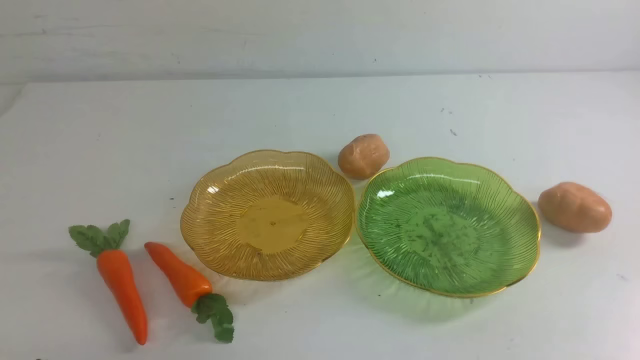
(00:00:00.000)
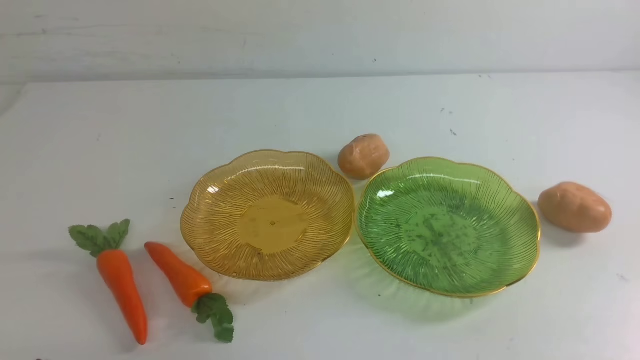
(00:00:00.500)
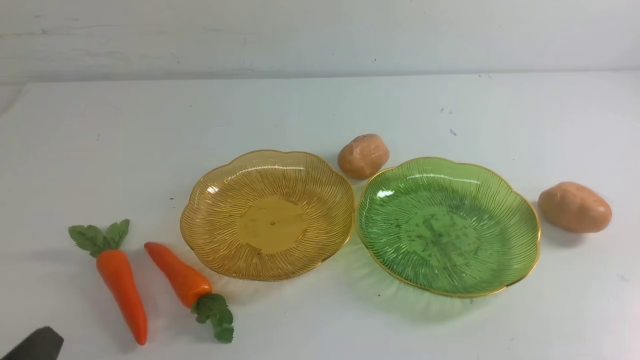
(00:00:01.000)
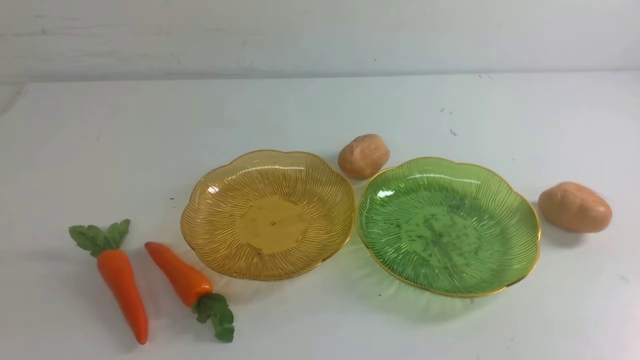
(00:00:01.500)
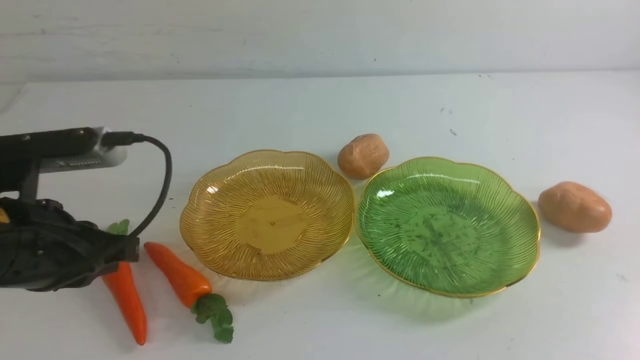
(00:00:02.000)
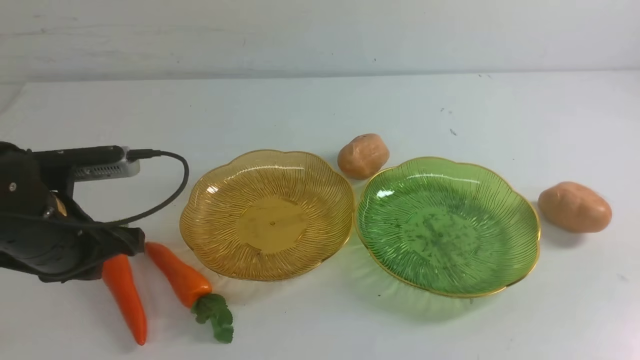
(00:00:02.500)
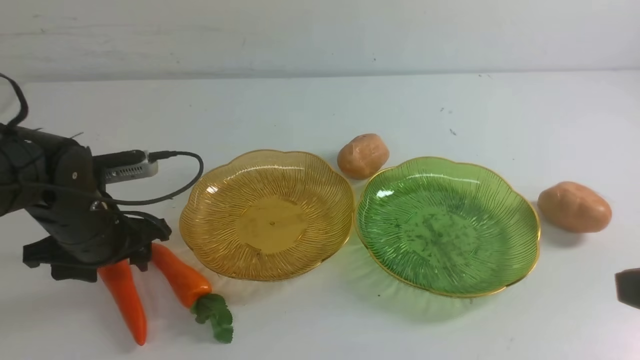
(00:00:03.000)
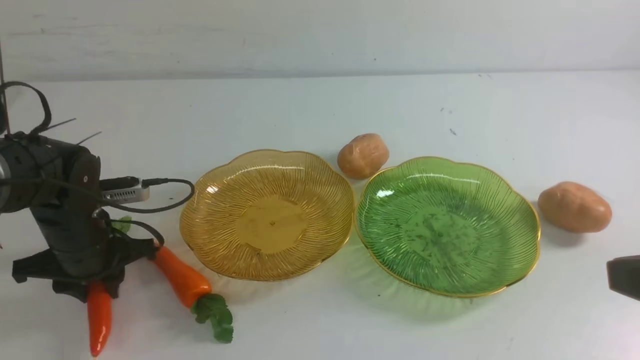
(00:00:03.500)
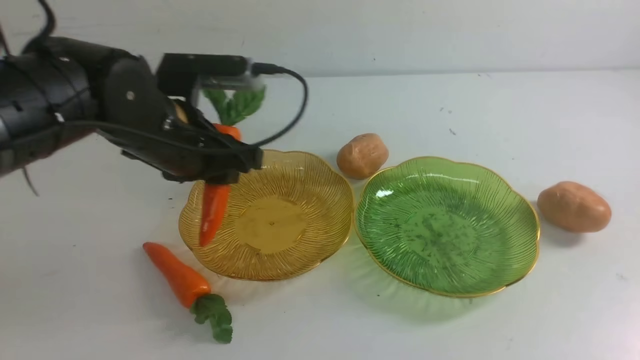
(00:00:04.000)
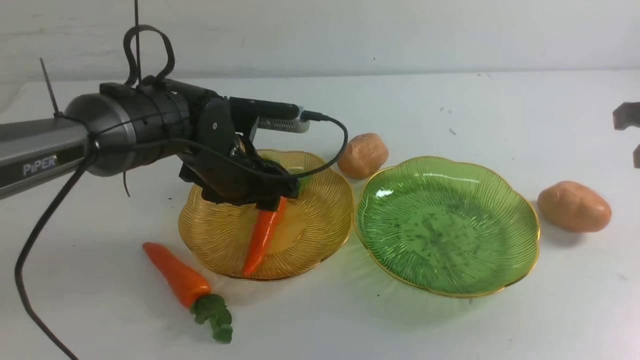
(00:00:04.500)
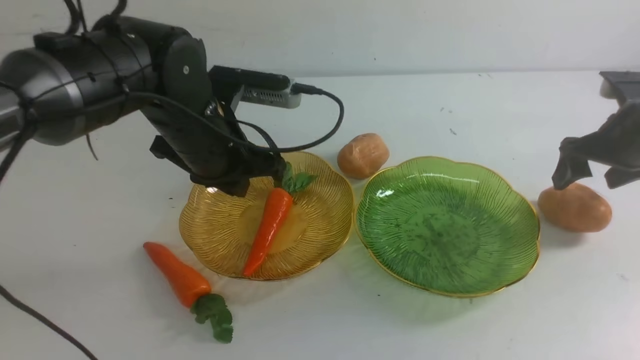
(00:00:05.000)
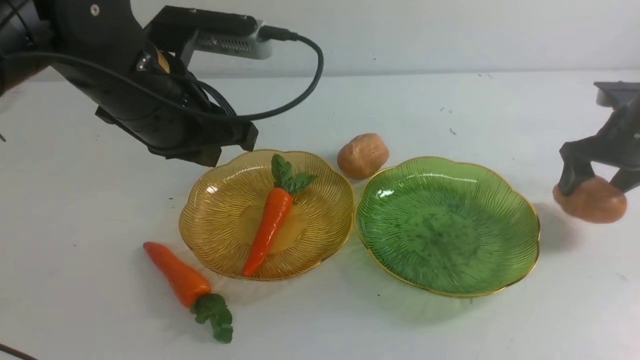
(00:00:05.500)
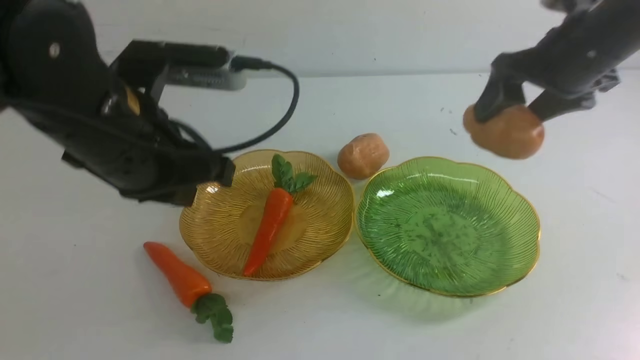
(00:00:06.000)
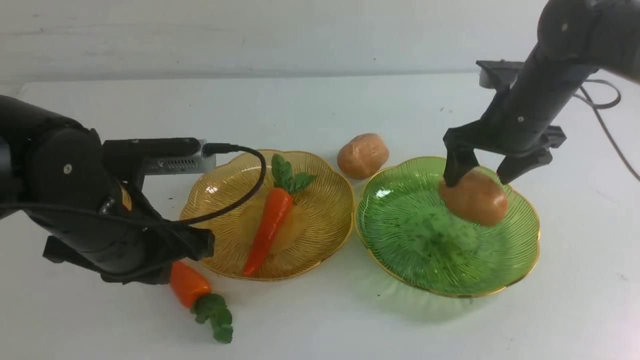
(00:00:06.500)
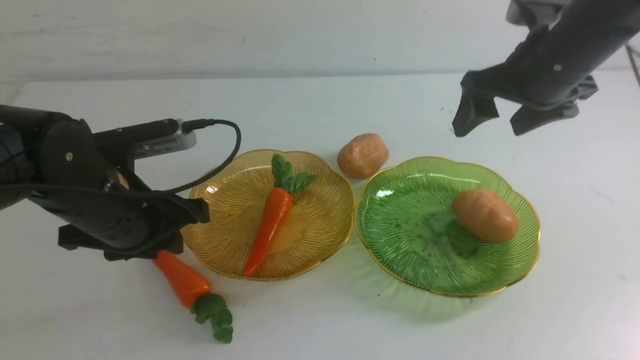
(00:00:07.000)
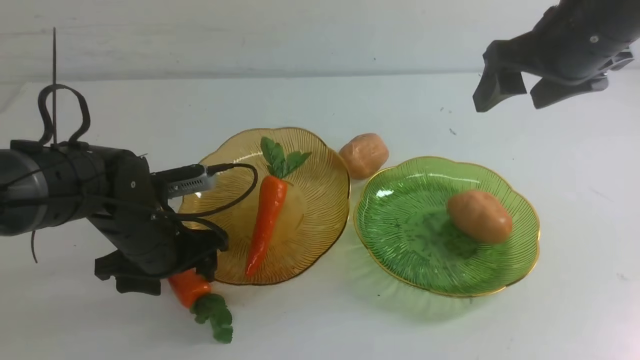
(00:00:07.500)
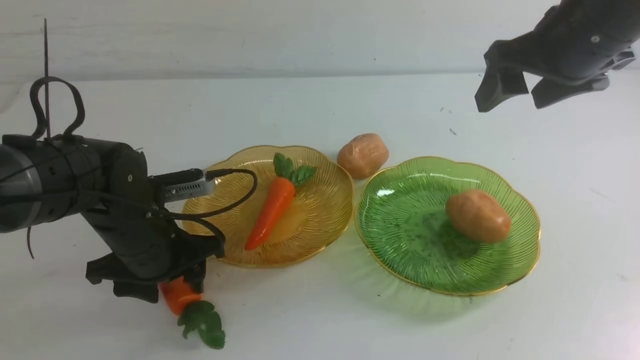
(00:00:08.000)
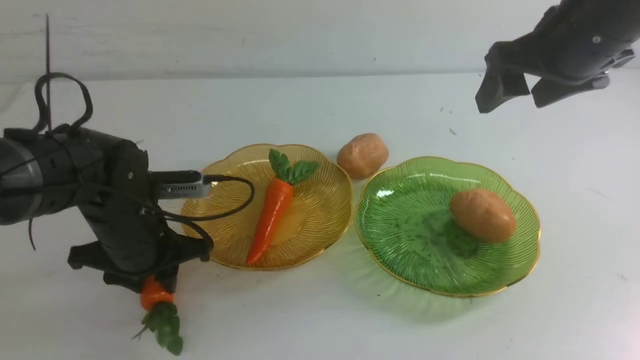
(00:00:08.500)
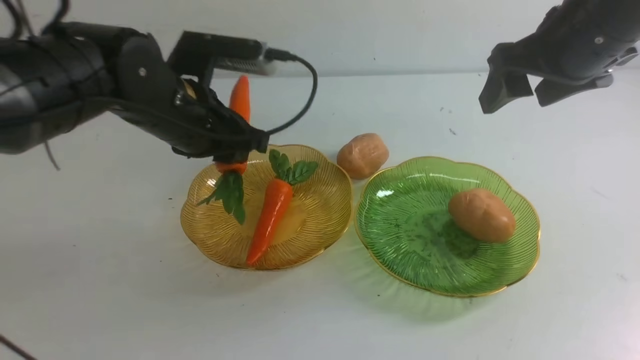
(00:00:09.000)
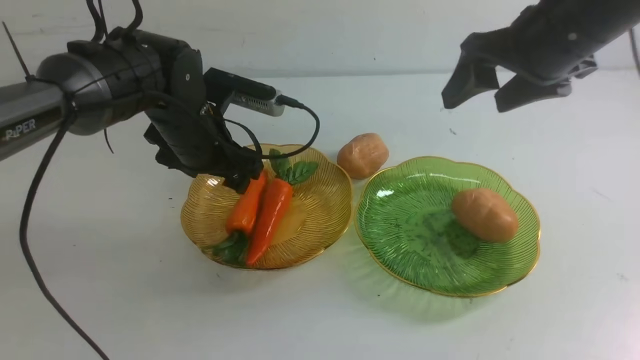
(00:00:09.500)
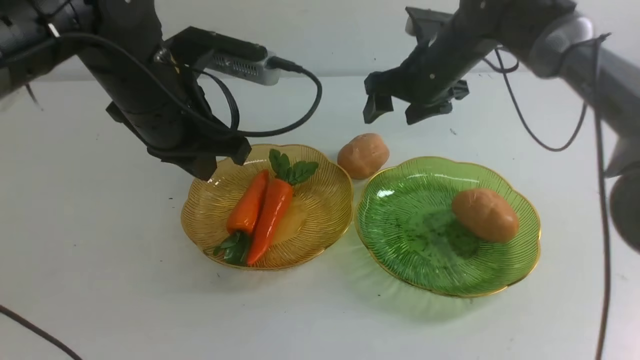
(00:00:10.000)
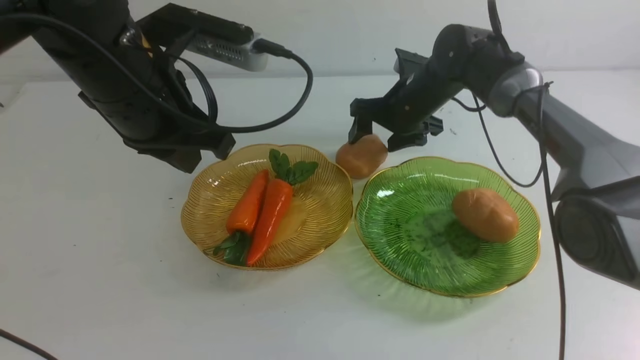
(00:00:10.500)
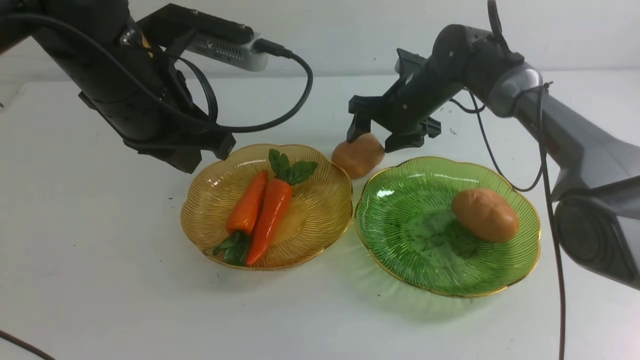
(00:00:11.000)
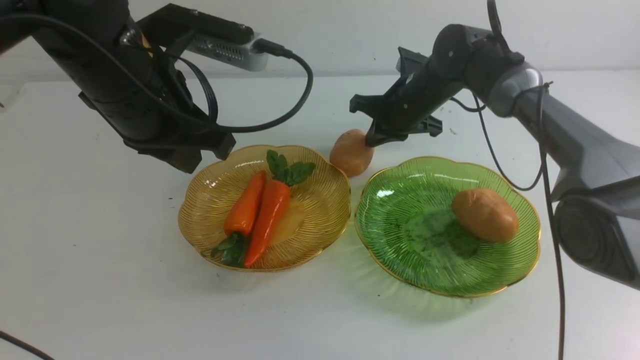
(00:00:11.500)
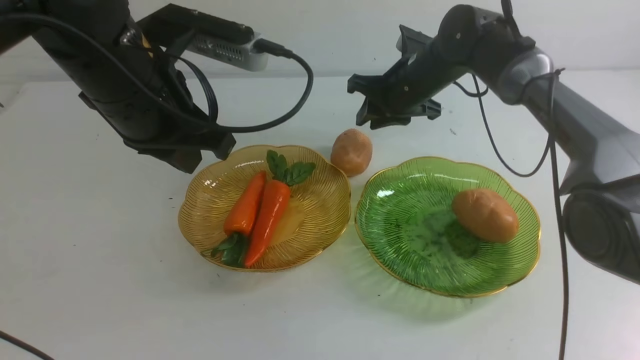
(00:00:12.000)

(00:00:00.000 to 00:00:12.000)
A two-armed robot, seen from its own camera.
Step, 00:00:00.000 - 00:00:04.500: use the left arm to grab a carrot and put it into the left plate.
Step, 00:00:05.000 - 00:00:06.500: Grab a potato with your right arm and put it on the right plate.
Step, 00:00:07.000 - 00:00:09.500: use the left arm to grab a carrot and put it into the left plate.
00:00:00.000 - 00:00:02.000: The left gripper shifts about 20 cm forward and upward.
00:00:02.000 - 00:00:04.000: The left gripper goes about 15 cm forward and to the right, and opens. Meanwhile the right gripper goes about 20 cm forward and upward.
00:00:04.000 - 00:00:06.000: The right gripper heads forward, covering about 20 cm, and opens, while the left gripper is displaced backward and upward by about 10 cm, and closes up.
00:00:06.000 - 00:00:08.000: The left gripper goes about 15 cm downward, and opens its fingers. Meanwhile the right gripper moves upward, approximately 5 cm.
00:00:08.000 - 00:00:10.000: The right gripper goes roughly 20 cm forward, downward and to the left, while the left gripper is displaced upward by roughly 15 cm, and closes up.
00:00:10.000 - 00:00:12.000: The right gripper closes, then reopens.

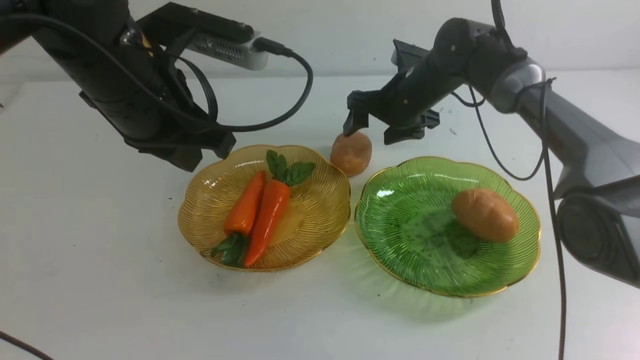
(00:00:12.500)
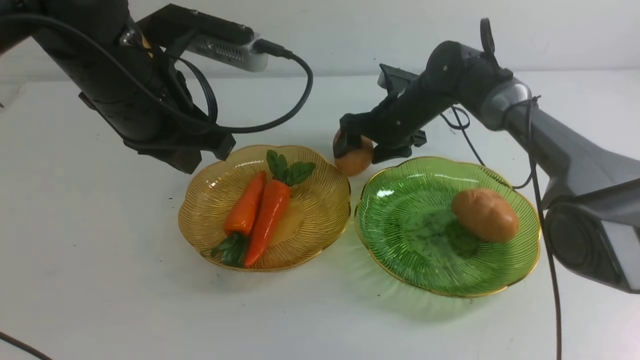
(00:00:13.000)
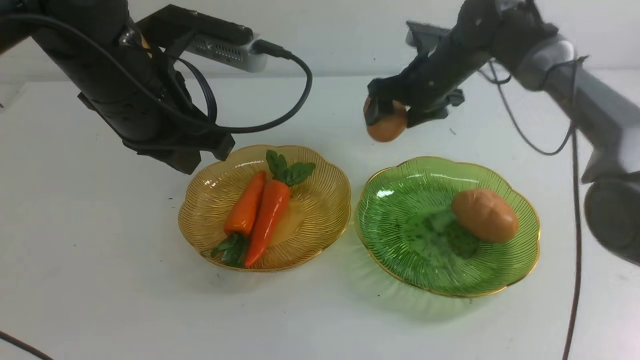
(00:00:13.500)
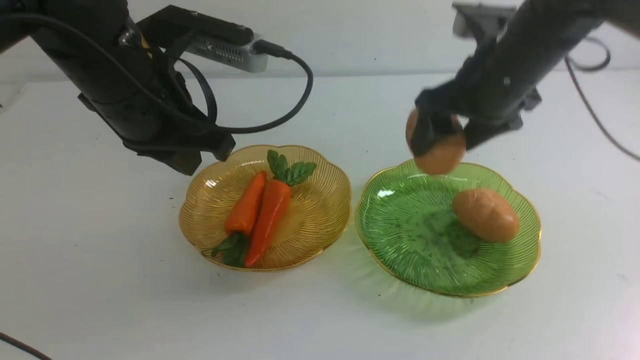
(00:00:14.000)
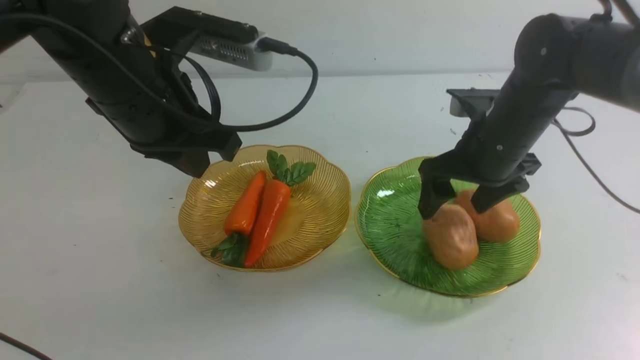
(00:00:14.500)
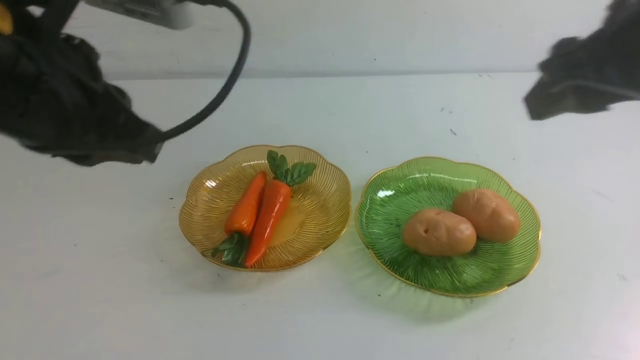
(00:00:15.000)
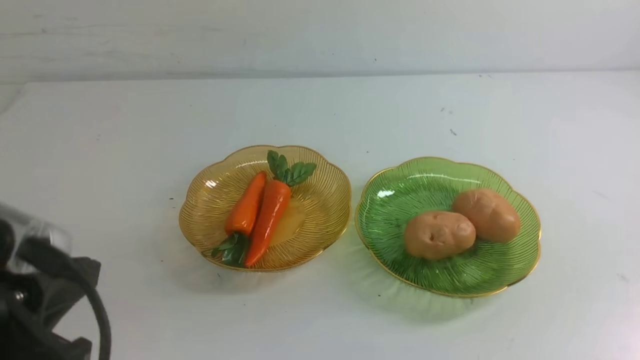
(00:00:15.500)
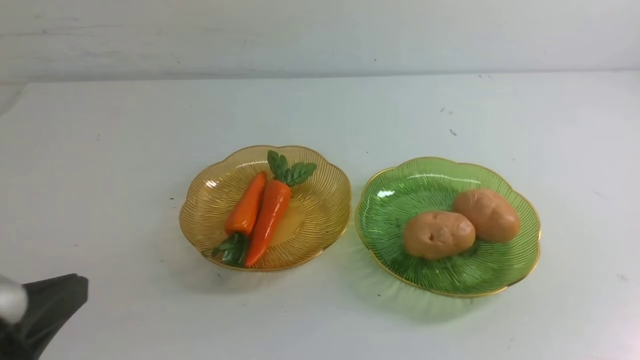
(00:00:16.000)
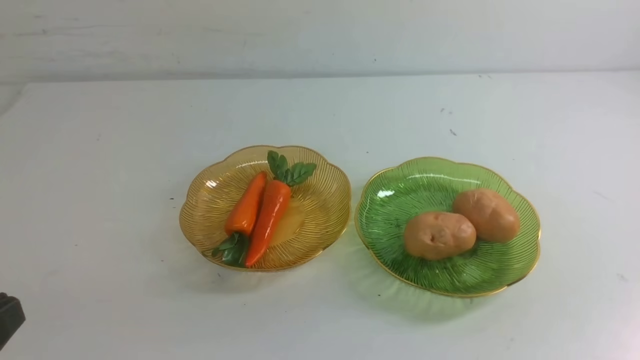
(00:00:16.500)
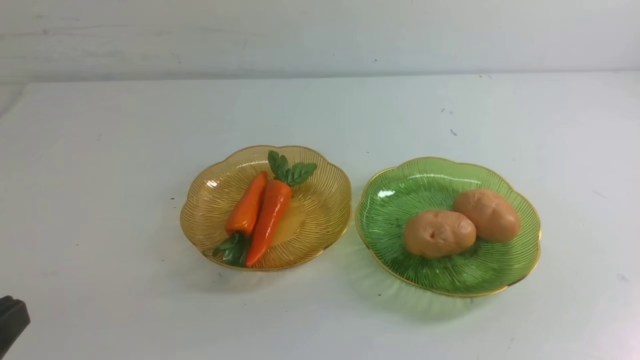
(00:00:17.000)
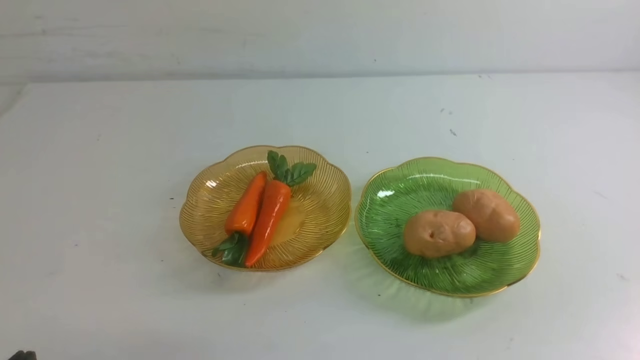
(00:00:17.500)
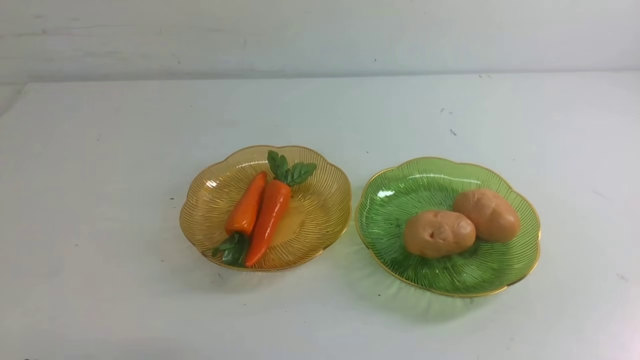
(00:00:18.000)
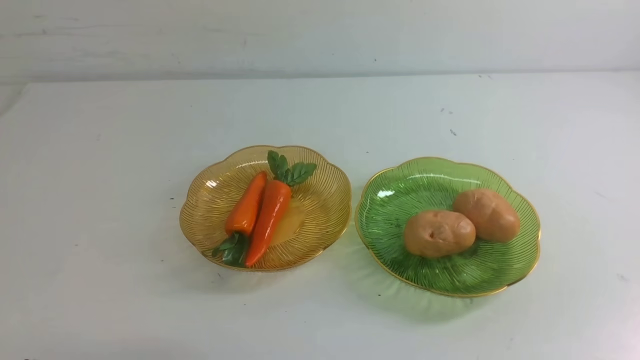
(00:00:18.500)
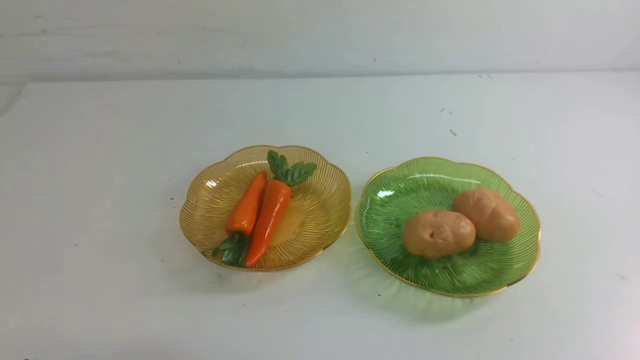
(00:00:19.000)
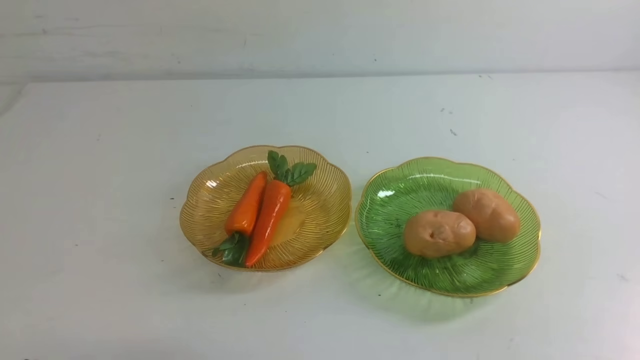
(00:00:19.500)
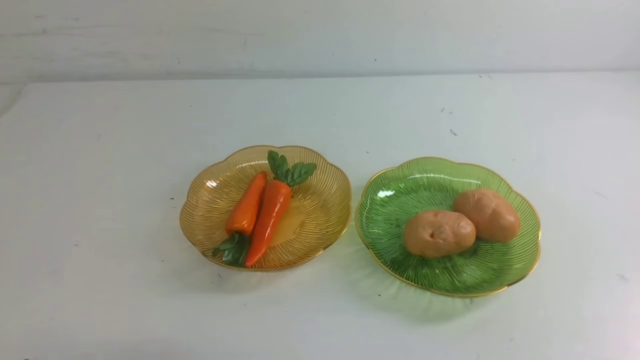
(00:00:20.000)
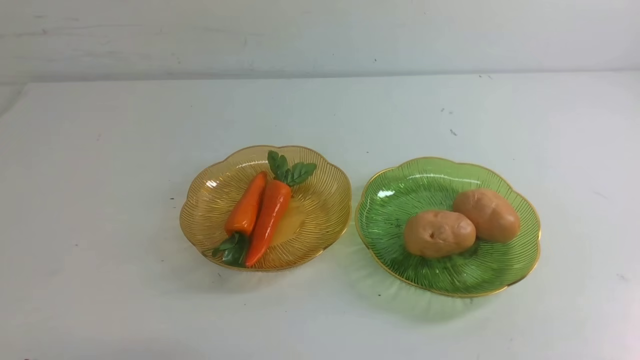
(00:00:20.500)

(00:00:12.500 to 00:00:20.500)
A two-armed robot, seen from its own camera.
Step, 00:00:12.500 - 00:00:14.500: Grab a potato with your right arm and put it on the right plate.
00:00:12.500 - 00:00:14.500: The right gripper goes some 20 cm backward, upward and to the right.
00:00:14.500 - 00:00:16.500: Both grippers travel together backward, approximately 30 cm. The right gripper closes its fingers.
